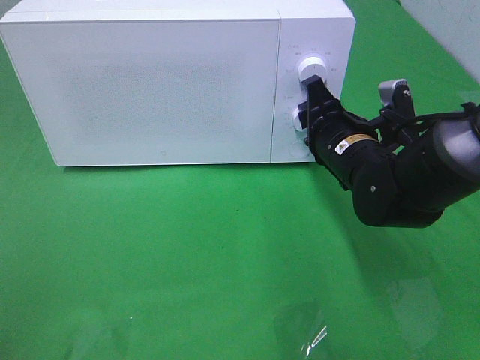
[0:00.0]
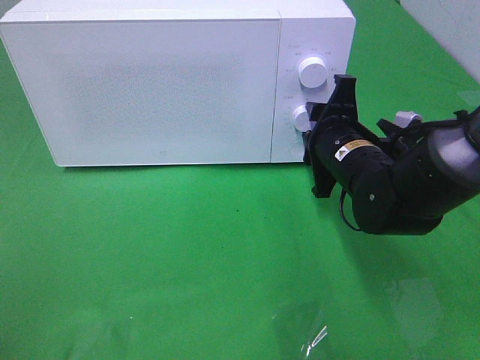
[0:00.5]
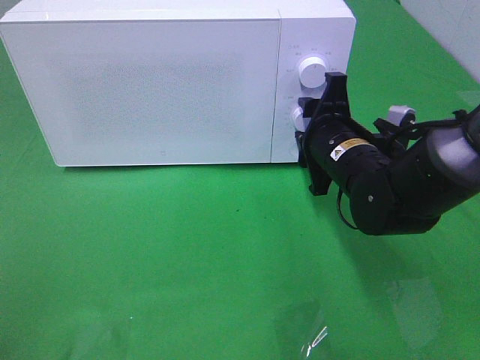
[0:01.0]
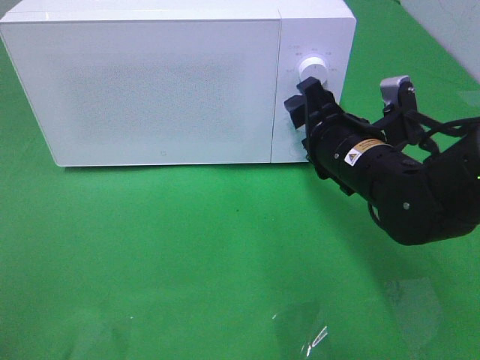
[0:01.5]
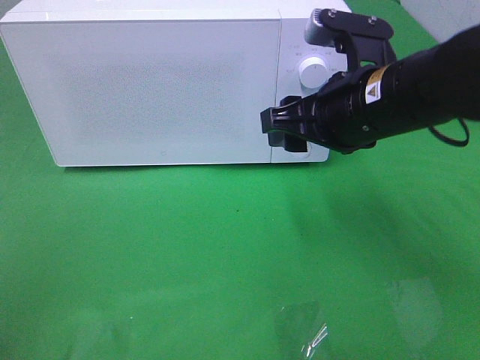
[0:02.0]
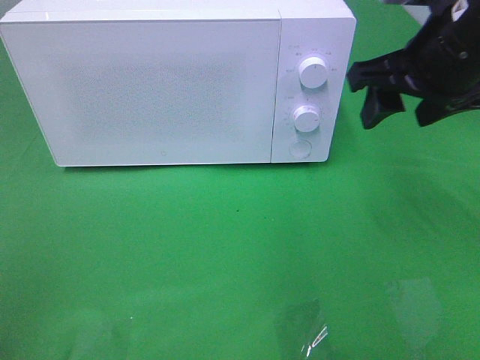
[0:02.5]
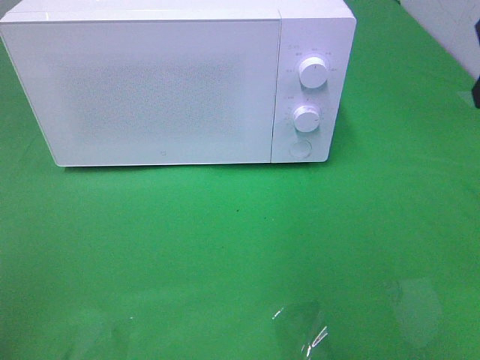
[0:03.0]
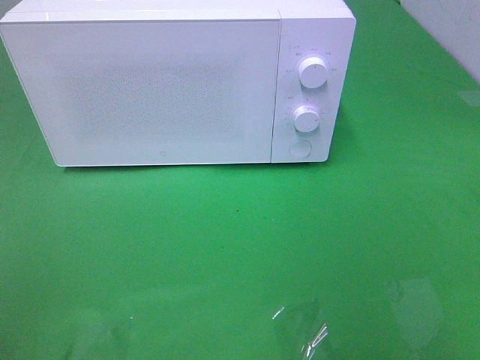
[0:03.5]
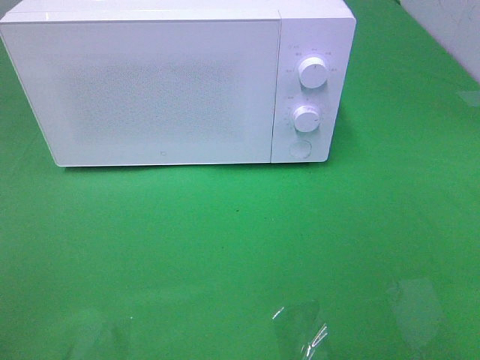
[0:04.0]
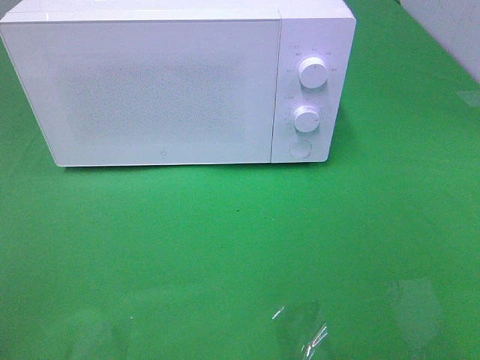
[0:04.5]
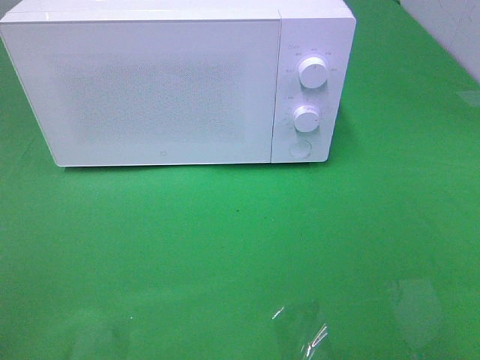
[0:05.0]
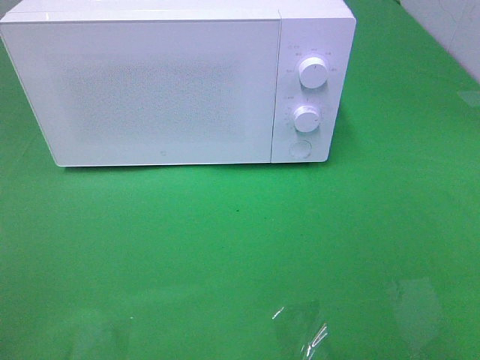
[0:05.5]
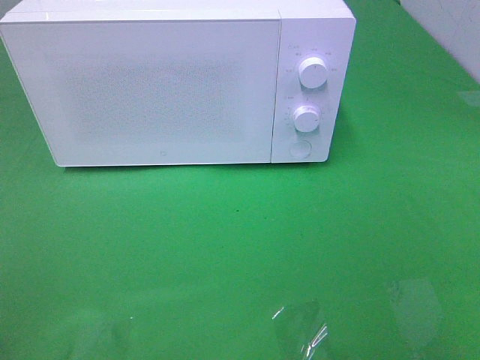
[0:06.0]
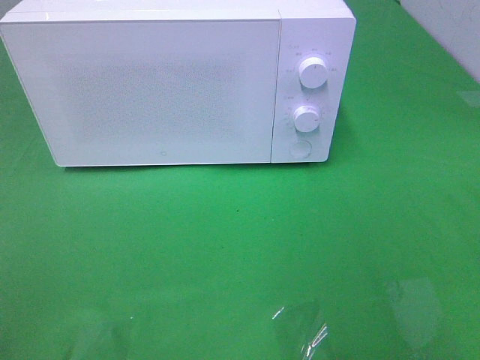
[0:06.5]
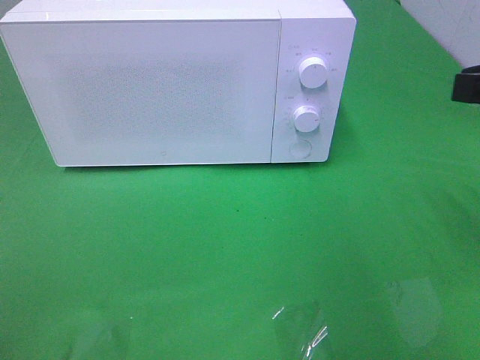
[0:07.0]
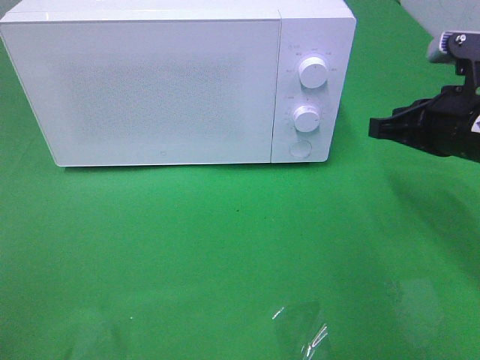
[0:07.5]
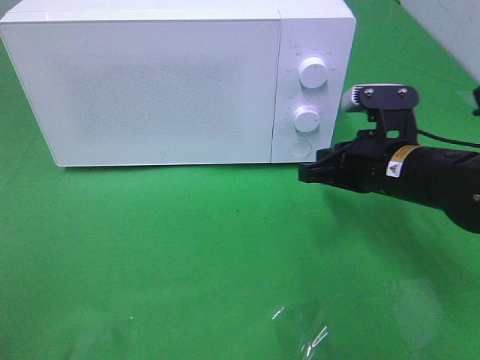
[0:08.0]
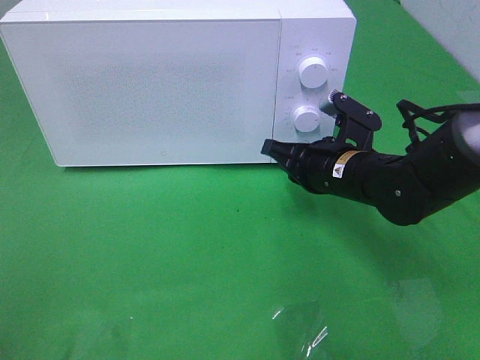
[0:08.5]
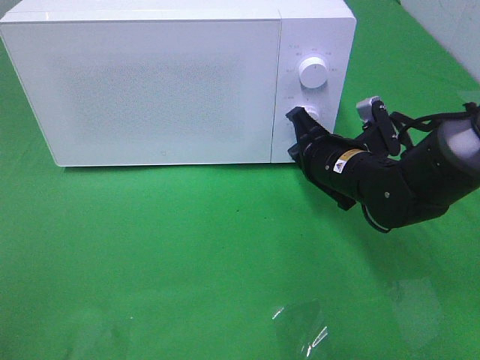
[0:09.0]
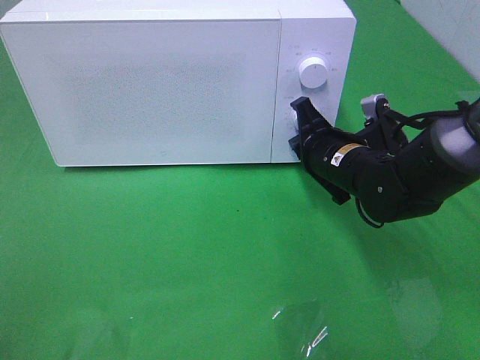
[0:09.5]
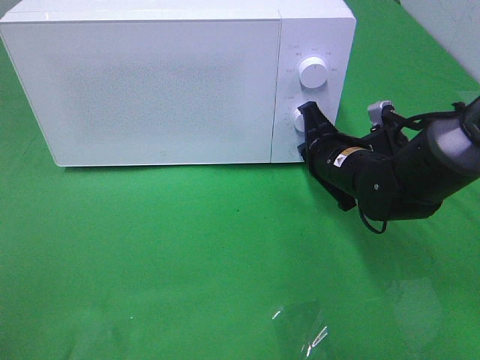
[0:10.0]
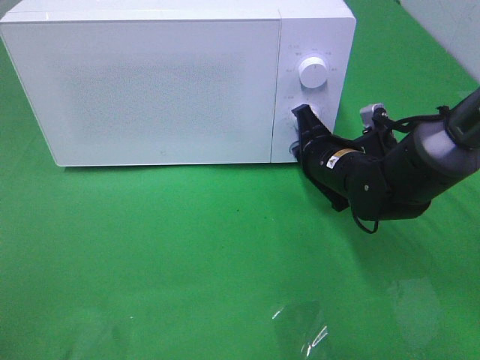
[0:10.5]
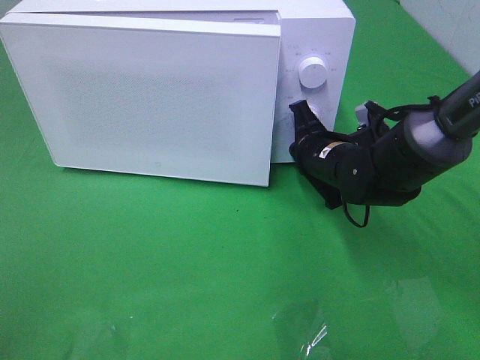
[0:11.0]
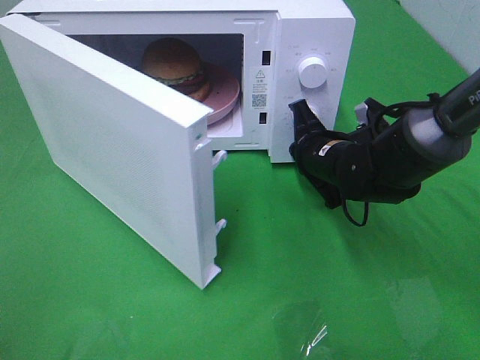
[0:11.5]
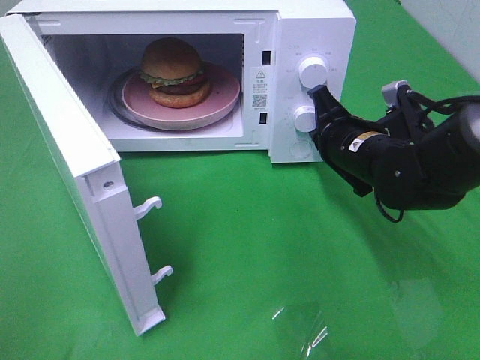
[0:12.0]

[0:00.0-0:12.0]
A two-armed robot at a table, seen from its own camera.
Task of the whole recording: Heat the burger.
0:00.0 to 0:02.0: The right gripper goes approximately 10 cm upward and backward.
0:02.0 to 0:04.0: The right gripper goes approximately 30 cm backward and to the right.
0:06.0 to 0:08.0: The right gripper heads forward, downward and to the left, covering approximately 35 cm, and closes its fingers.
0:08.0 to 0:10.0: The right gripper goes about 5 cm forward.

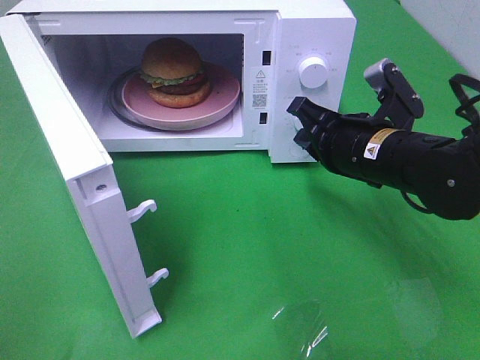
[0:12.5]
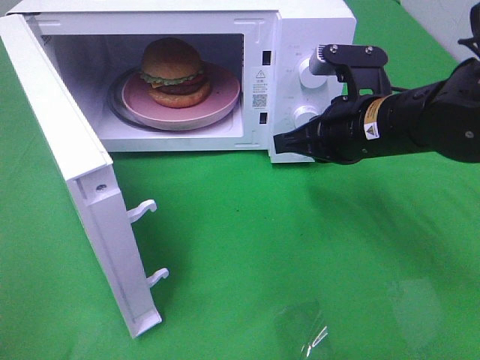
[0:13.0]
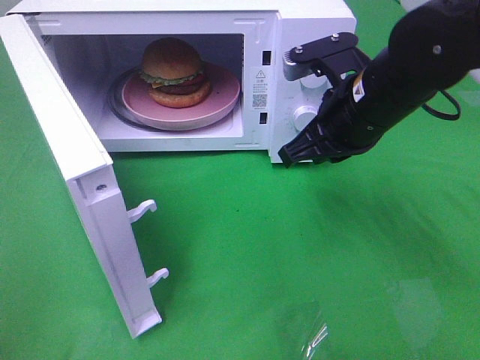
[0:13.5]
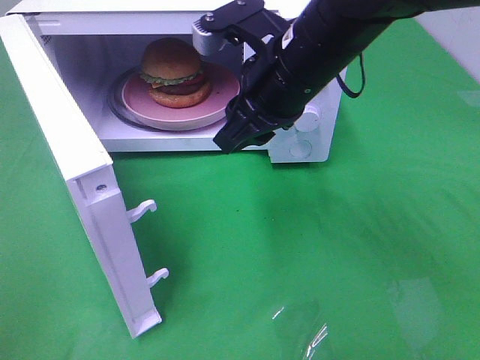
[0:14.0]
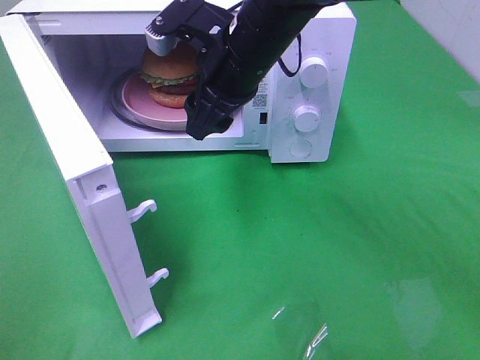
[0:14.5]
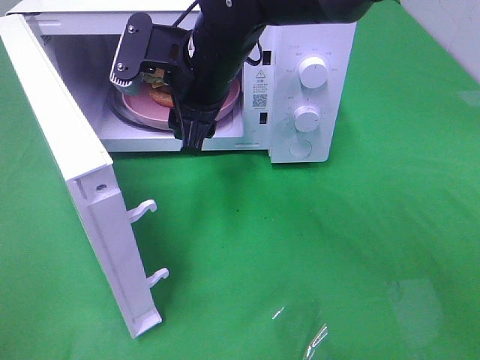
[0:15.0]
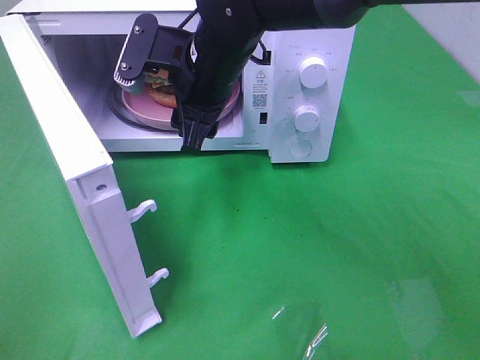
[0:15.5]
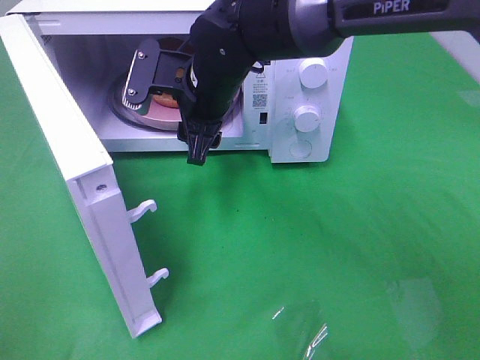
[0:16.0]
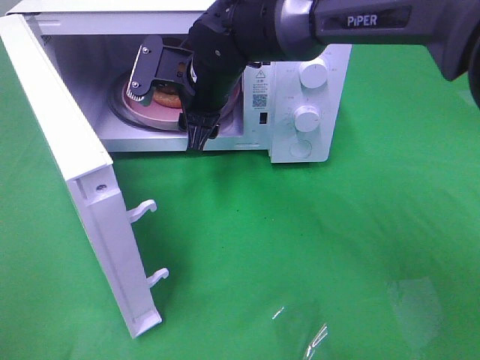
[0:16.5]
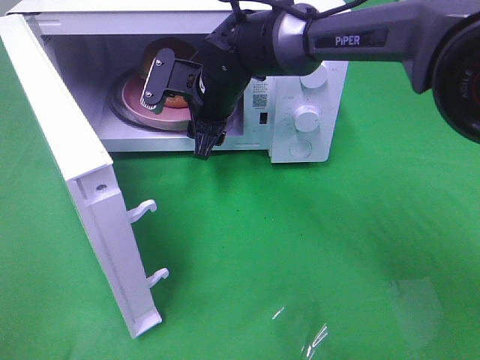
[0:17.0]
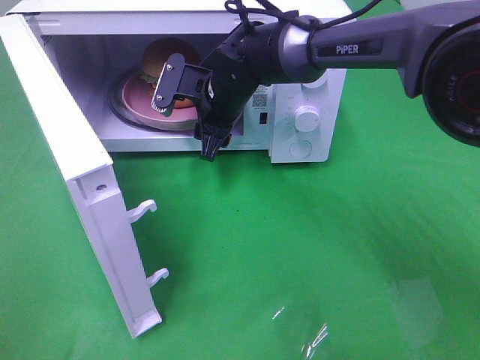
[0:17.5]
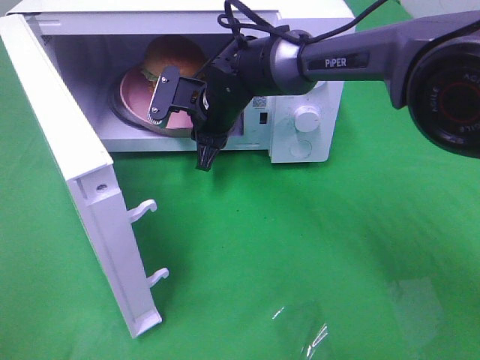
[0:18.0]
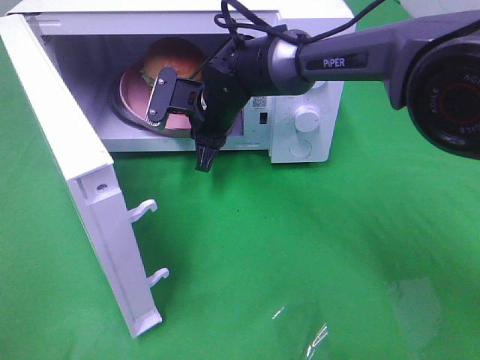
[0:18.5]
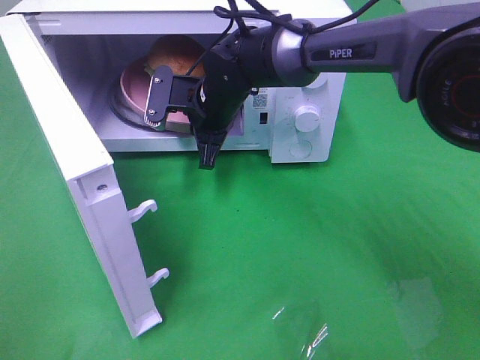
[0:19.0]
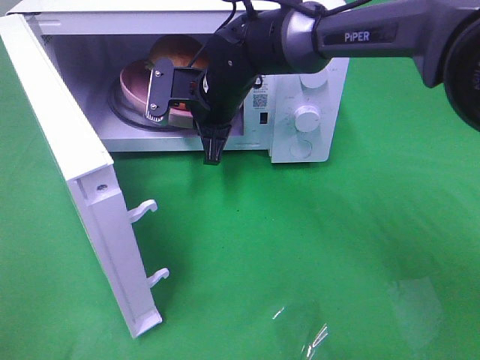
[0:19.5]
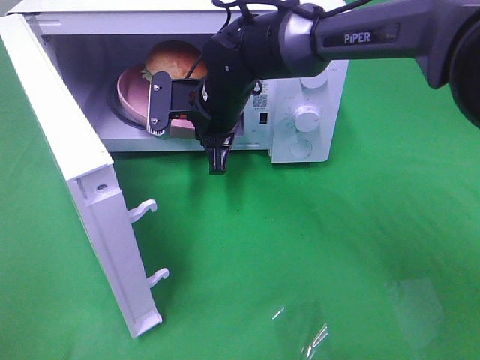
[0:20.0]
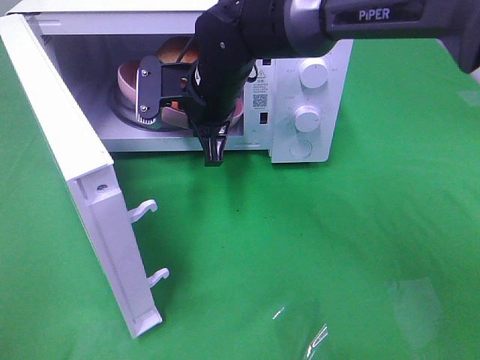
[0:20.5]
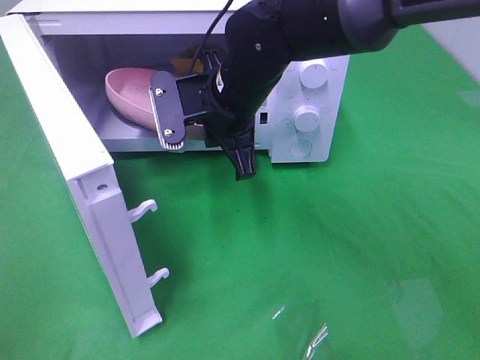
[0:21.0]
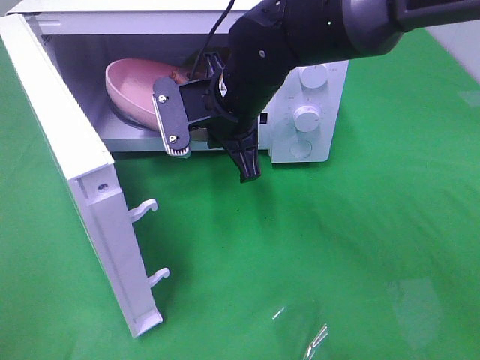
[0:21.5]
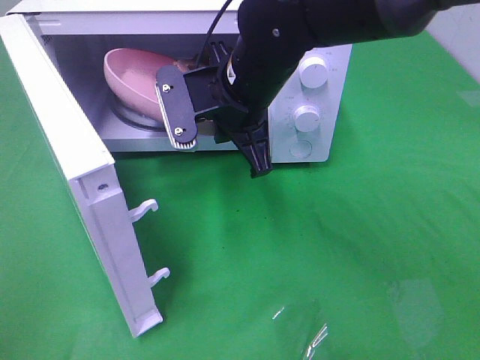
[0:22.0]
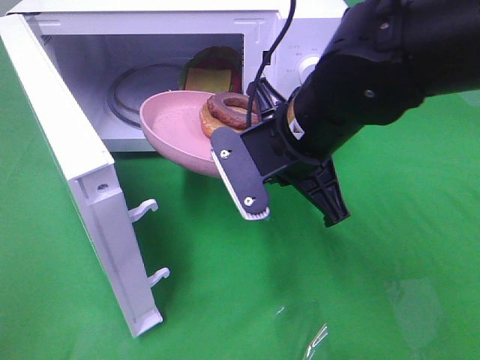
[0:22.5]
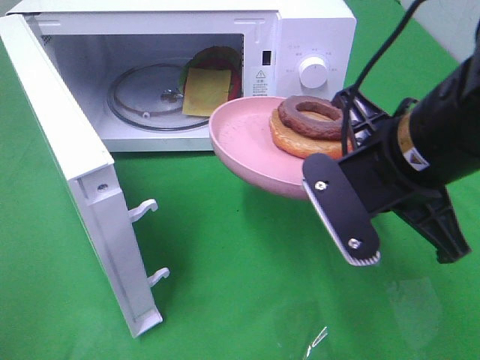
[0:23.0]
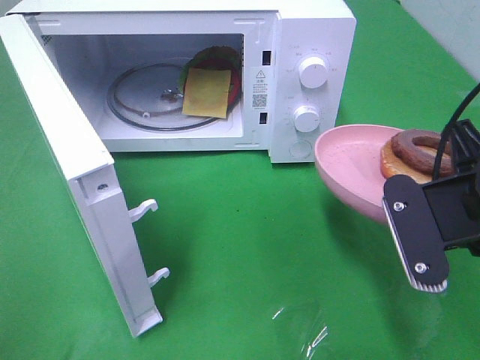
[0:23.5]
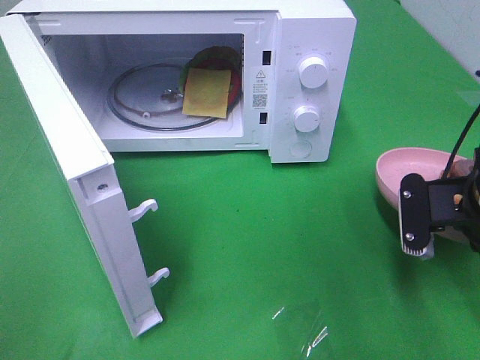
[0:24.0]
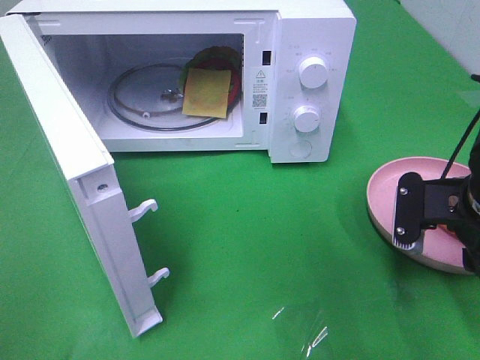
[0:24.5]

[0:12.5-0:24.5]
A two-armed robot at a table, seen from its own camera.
Task of the whole recording: Heat the burger.
Step, 0:12.5 to 0:18.5: Right hand: grab the plate with the hamburger.
0:12.5 to 0:14.5: The right gripper goes some 15 cm to the left, upward and forward, and opens.
0:14.5 to 0:16.5: The right gripper moves downward, about 5 cm.
0:16.5 to 0:18.5: The right gripper heads downward, covering roughly 5 cm, and closes its fingers.
0:18.5 to 0:20.5: The right gripper heads upward, covering about 5 cm.
0:20.5 to 0:22.5: The right gripper shifts some 15 cm backward and to the right.
0:22.5 to 0:24.5: The right gripper heads to the right, covering about 15 cm, and opens up.

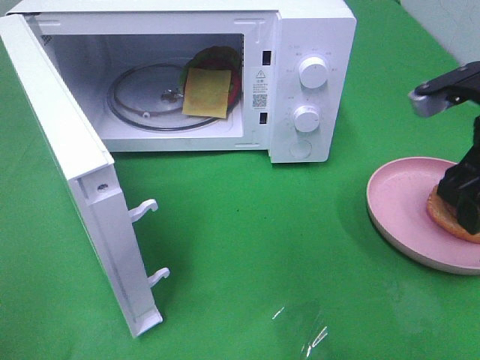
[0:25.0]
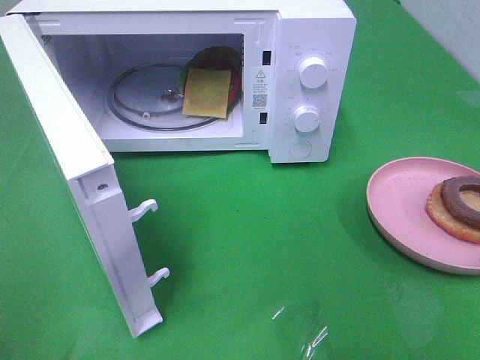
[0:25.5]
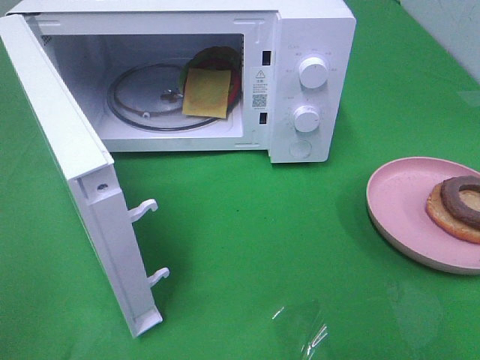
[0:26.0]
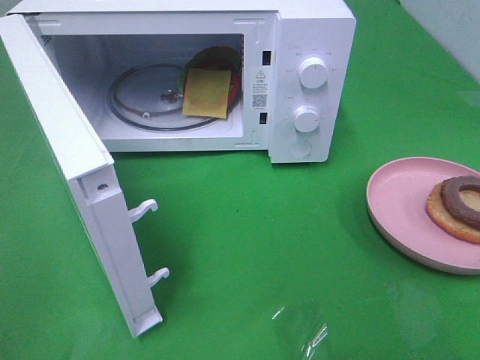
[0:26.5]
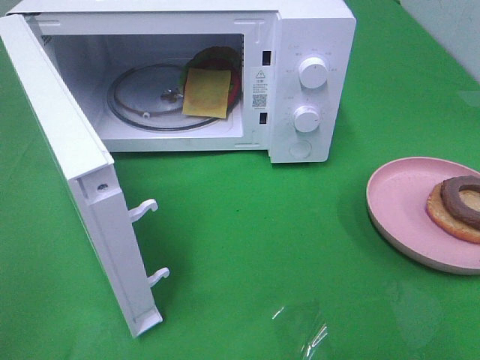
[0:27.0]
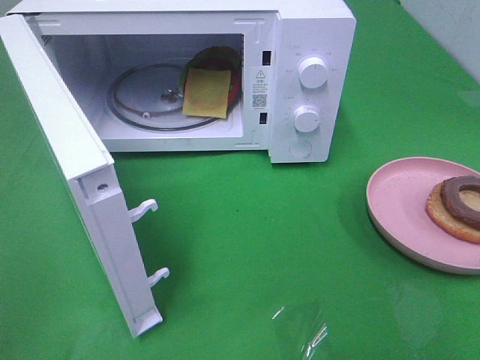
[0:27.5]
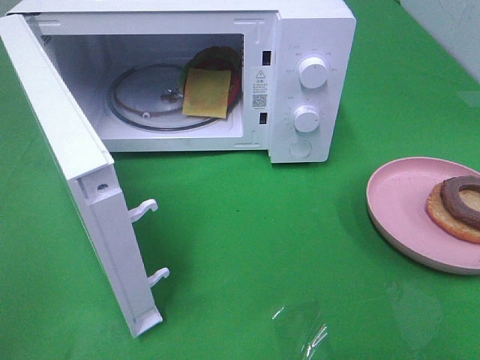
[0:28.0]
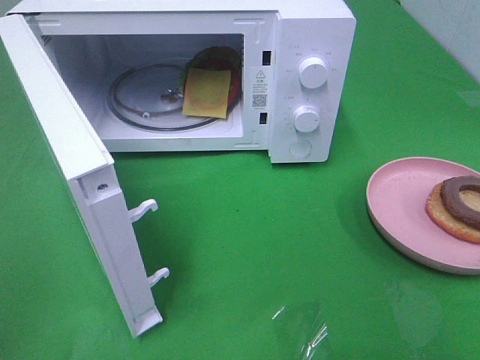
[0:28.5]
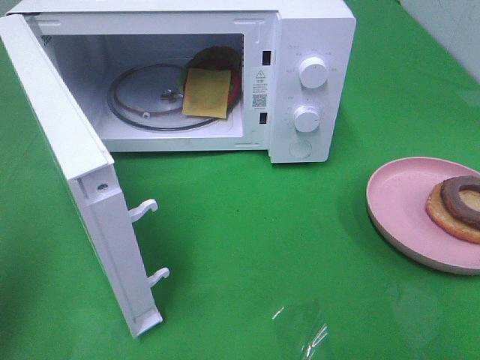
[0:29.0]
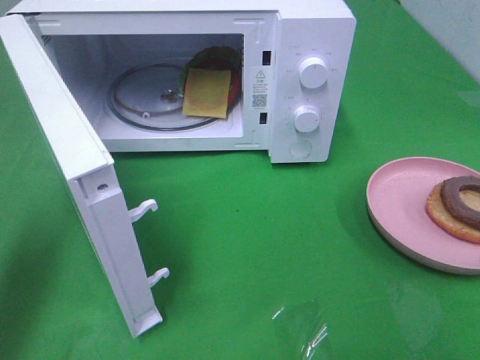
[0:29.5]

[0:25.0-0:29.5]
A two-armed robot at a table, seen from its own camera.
Task of the whole recording: Heat the burger.
0:25.0 to 0:27.0: The right gripper heads backward, covering roughly 25 cm.
0:27.0 to 0:29.5: The left gripper travels forward by some 20 cm.
